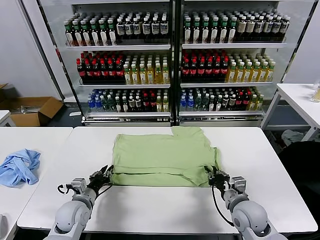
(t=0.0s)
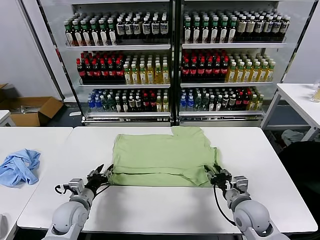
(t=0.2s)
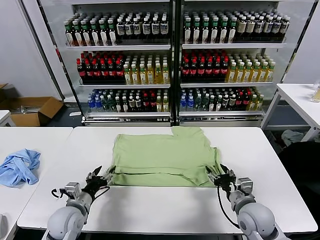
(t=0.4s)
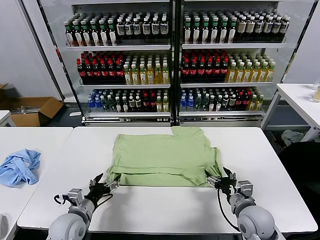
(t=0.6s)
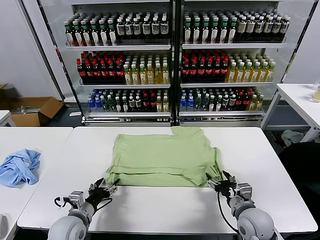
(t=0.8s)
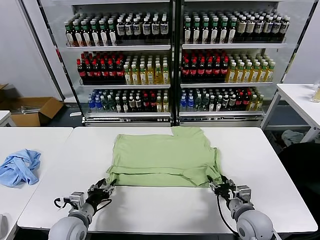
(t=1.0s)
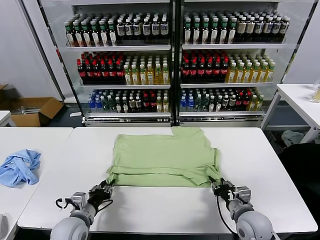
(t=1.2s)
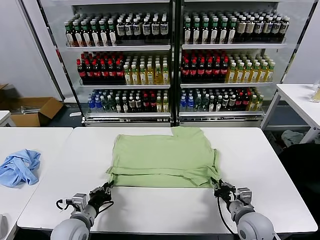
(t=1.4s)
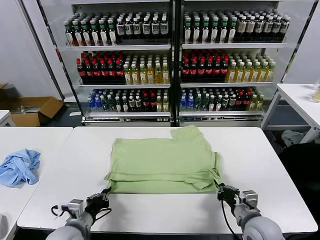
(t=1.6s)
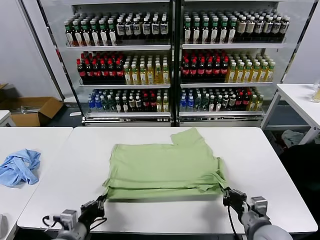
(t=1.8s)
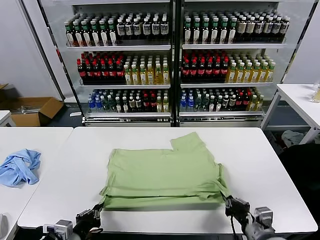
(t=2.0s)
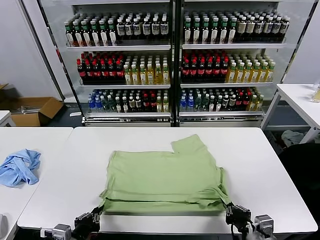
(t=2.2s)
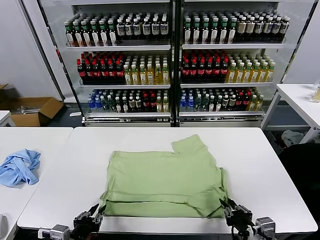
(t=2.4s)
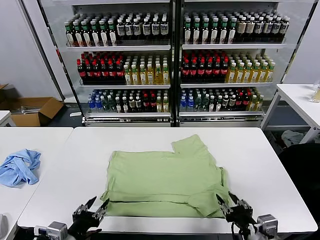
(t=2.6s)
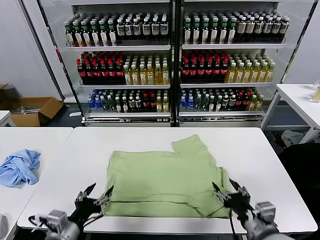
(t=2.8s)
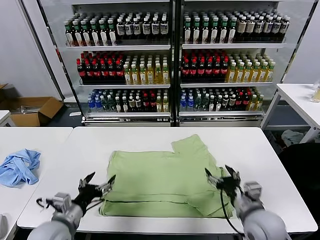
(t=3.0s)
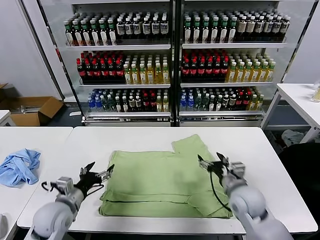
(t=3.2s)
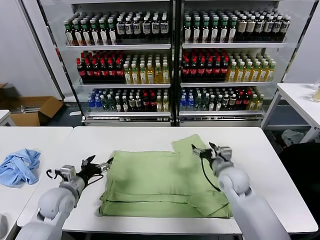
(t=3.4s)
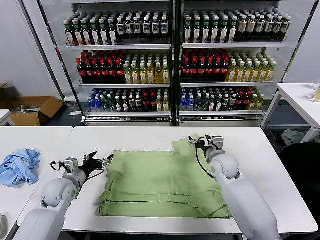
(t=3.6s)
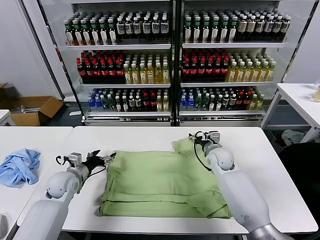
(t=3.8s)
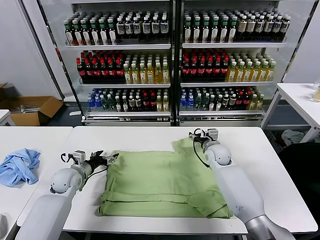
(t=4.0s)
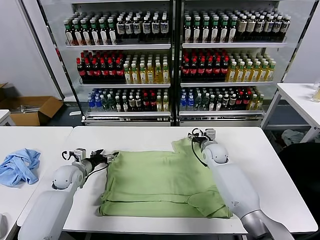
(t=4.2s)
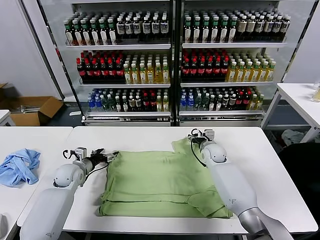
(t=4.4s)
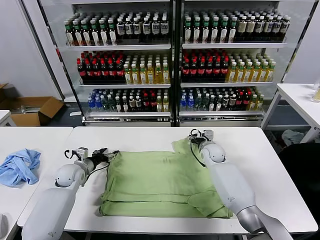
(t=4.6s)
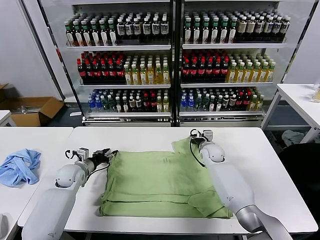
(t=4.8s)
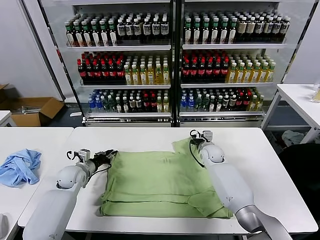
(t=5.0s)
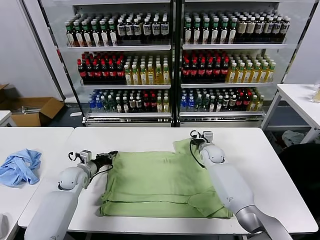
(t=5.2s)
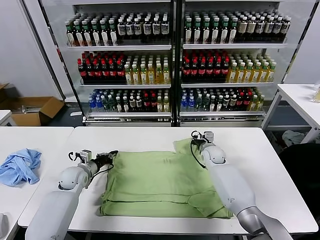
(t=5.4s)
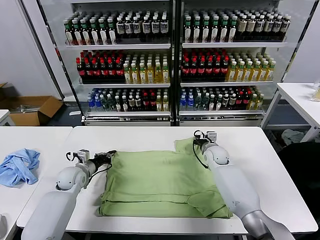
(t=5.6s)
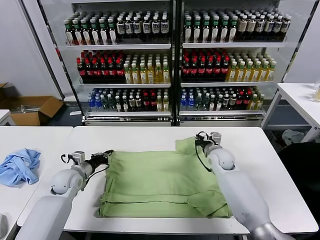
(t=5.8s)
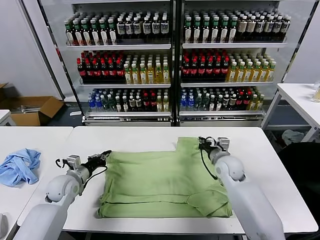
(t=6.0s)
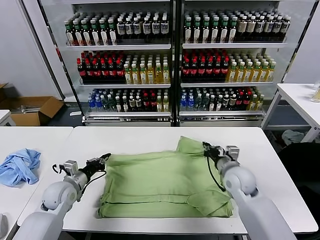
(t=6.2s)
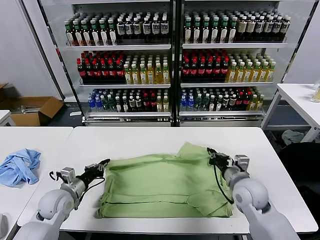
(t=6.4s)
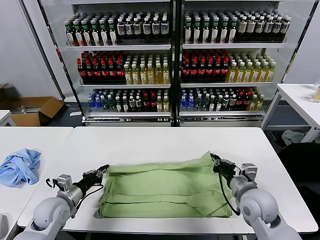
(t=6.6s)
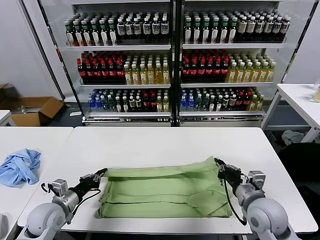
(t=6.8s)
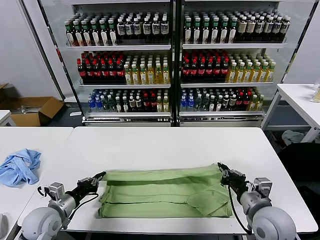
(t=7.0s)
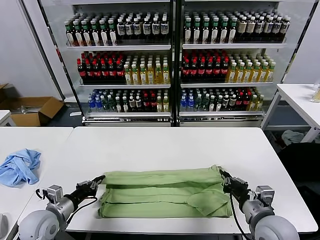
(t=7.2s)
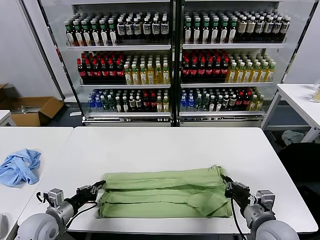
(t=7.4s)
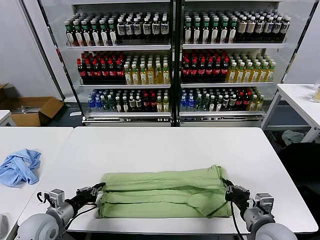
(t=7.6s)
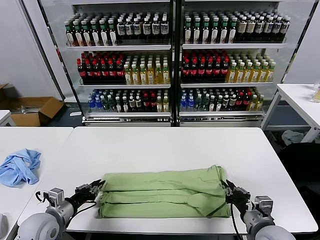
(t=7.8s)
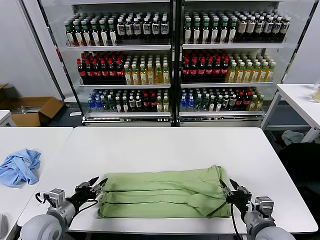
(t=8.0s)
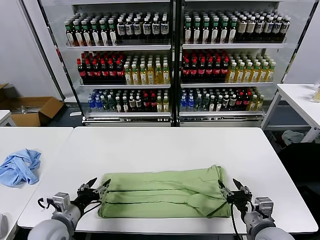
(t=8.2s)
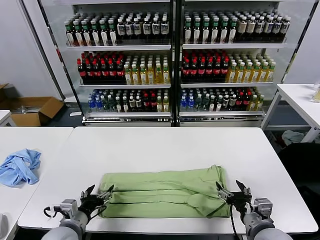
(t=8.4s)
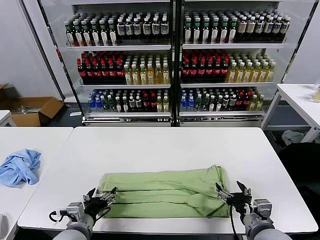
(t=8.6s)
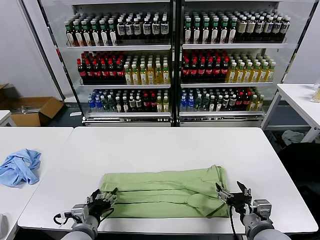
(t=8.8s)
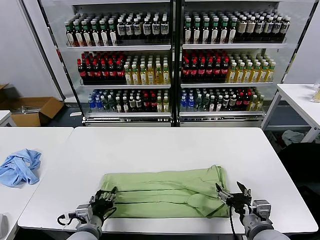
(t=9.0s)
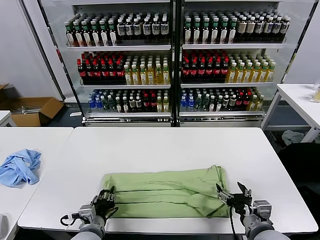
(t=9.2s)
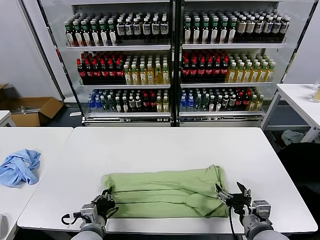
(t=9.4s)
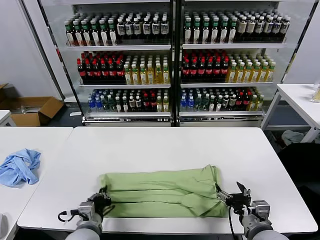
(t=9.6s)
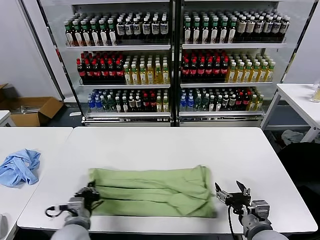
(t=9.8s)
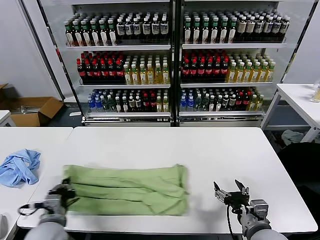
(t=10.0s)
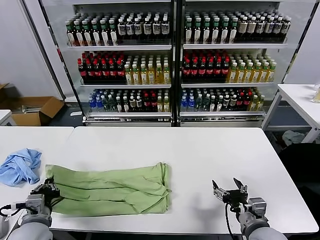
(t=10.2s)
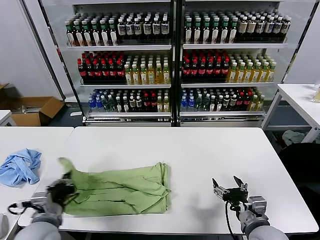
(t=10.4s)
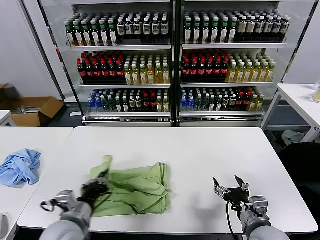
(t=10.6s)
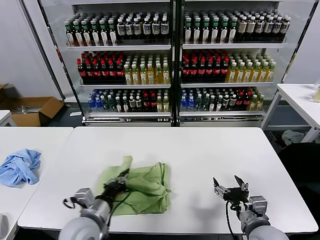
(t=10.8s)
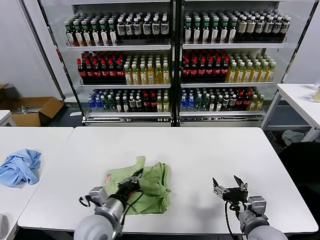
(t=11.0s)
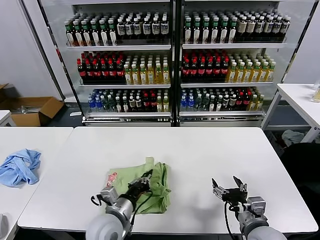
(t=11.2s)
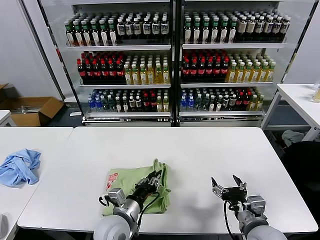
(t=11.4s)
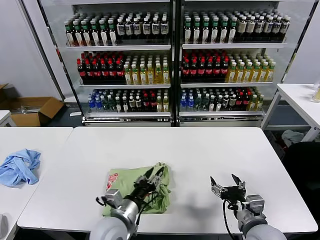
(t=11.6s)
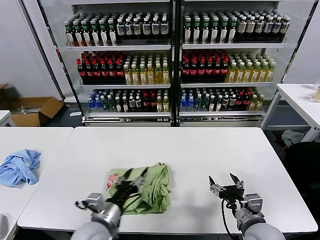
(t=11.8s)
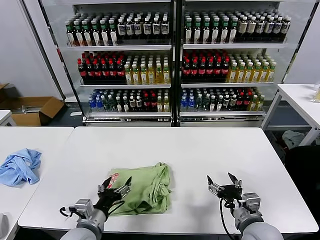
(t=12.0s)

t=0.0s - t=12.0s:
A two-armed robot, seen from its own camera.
Task of the whole recording: fold and organize the clothes.
Step, t=0.4s - t=2.4s: Drag the clothes downward with both gripper.
Step, t=2.8s - t=5.2s: use both grippers simultaneously to clamp the upper edge of the clothing fabric.
Step, t=5.4s - t=8.0s: use both grippers to drag the upper edge of the fabric backward and fold it over the lower edge.
Step, t=8.2s - t=9.4s: use the left gripper to clamp the left edge of the fabric.
Step, t=9.6s - t=11.6s: use the left gripper to drag the left edge of the fabric to the left and folds it over the right edge.
t=0.0s - t=1.6s: The grippers both shift backward by some 10 cm. The right gripper closes, while the left gripper opens, then closes once more.
t=1.6s - t=3.0s: The left gripper shifts about 5 cm upward, reaches about 10 cm backward, then returns, and opens its fingers; the right gripper moves forward, roughly 5 cm, and opens.
t=3.0s - t=4.4s: The two grippers go roughly 25 cm forward.
t=4.4s - t=6.0s: The left gripper travels backward by approximately 5 cm, and closes; the right gripper heads backward, covering roughly 10 cm, and closes up.
t=6.0s - t=7.6s: The right gripper travels backward by approximately 20 cm, while the left gripper travels backward by roughly 15 cm.
t=7.6s - t=9.0s: The left gripper travels to the right by roughly 15 cm, and opens; the right gripper opens its fingers.
t=9.0s - t=10.4s: The left gripper goes approximately 10 cm to the left and upward, and closes its fingers.
t=10.4s - t=12.0s: The left gripper travels to the right by some 10 cm, and opens.

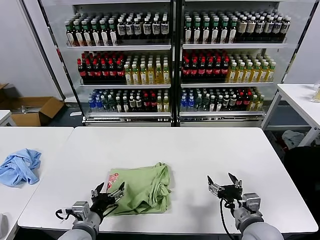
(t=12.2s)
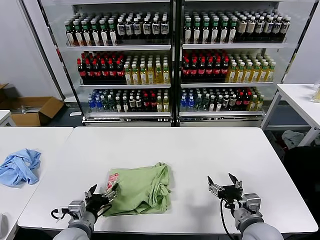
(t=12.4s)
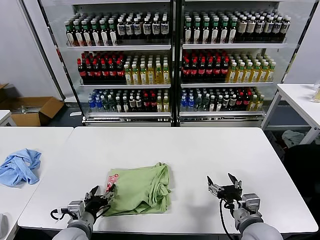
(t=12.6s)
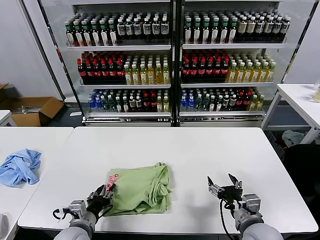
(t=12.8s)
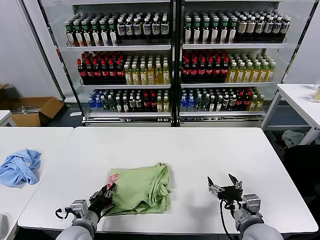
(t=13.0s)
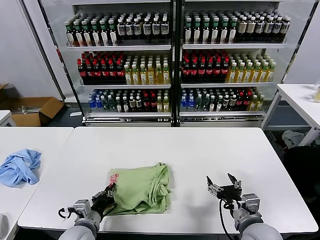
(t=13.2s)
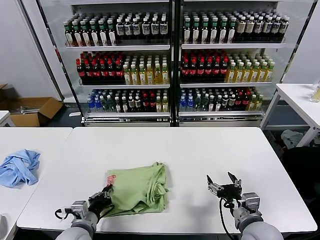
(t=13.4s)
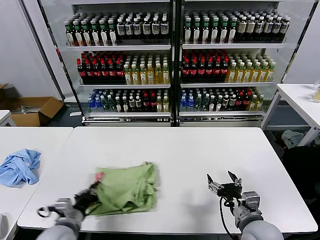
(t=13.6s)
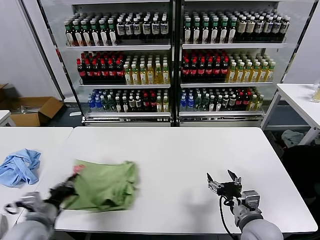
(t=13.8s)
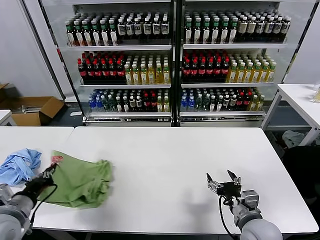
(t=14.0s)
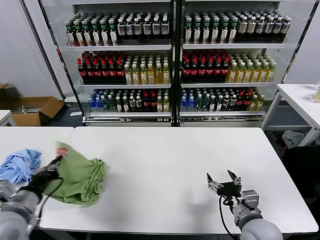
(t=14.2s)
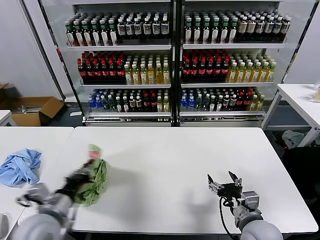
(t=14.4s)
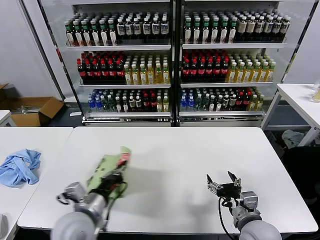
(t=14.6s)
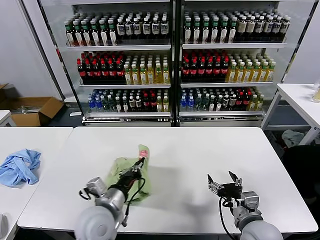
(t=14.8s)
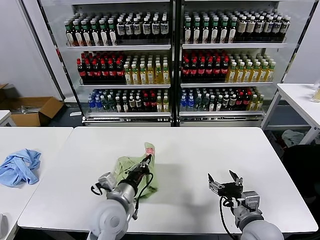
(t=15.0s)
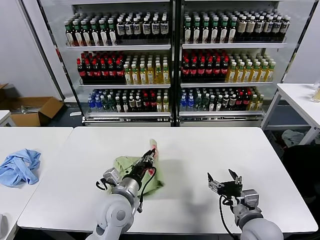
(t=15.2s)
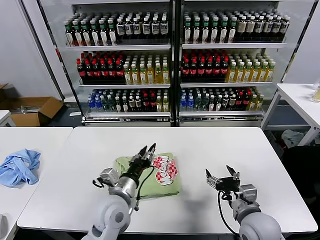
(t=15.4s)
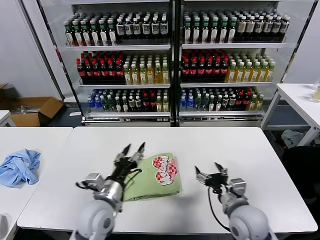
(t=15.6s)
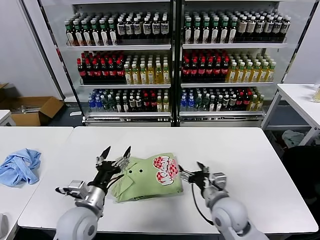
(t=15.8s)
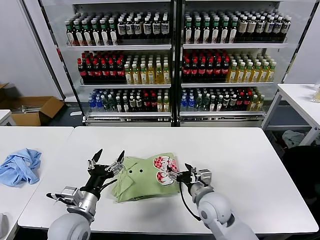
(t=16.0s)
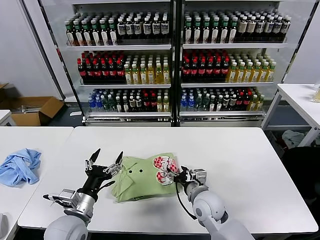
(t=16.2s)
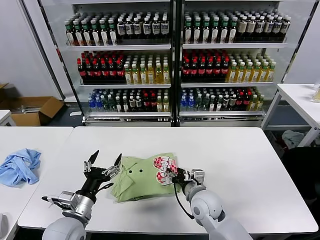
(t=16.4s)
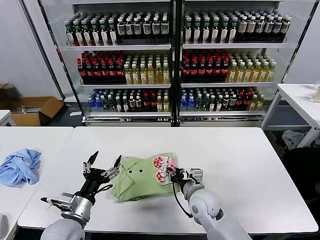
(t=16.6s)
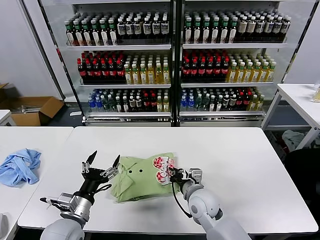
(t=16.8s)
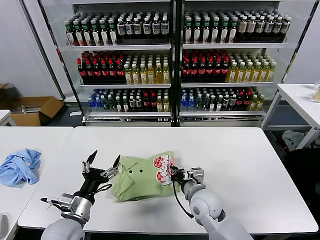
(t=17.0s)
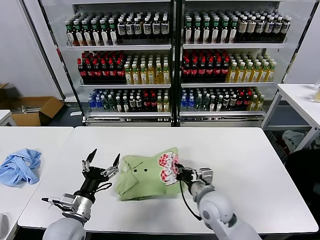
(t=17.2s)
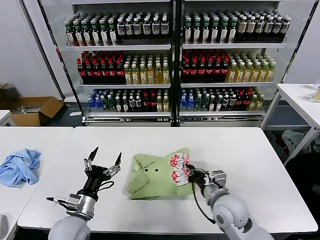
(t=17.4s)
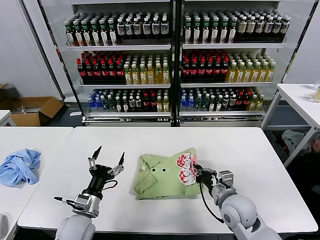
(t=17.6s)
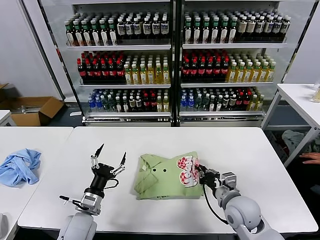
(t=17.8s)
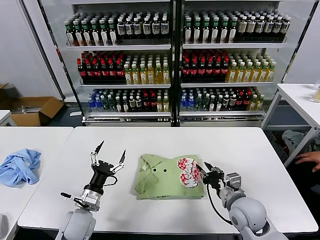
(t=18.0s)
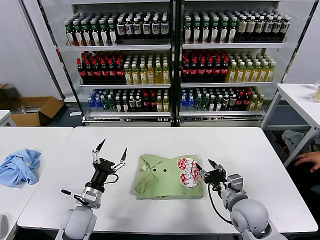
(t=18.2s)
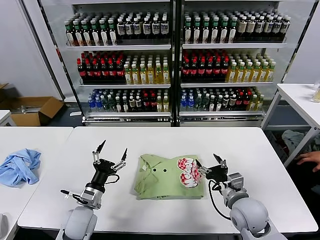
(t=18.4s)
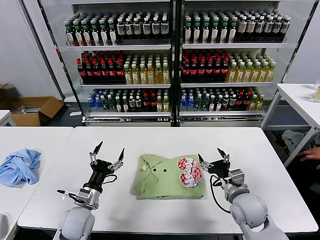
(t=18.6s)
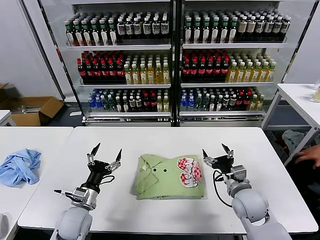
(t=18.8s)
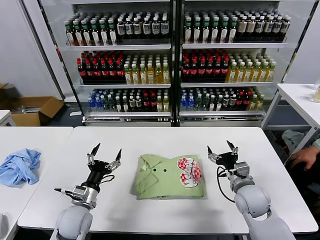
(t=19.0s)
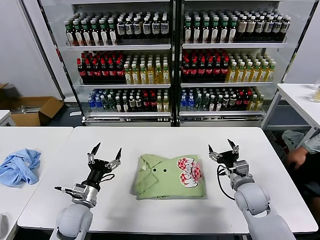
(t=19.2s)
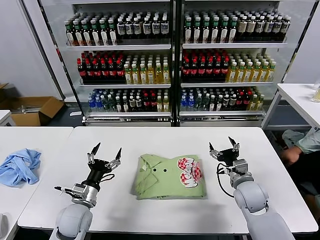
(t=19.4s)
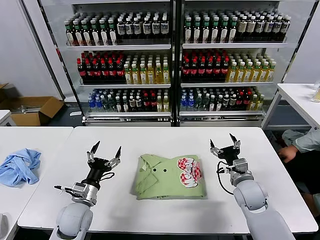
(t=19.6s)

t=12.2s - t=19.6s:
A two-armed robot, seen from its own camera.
Task of the whole recording: fold and organize the clothes.
Step, t=12.2s - t=15.4s: Flip the folded clothes over with left gripper.
Step, t=15.6s - t=18.0s: Drag the clothes to the center of the table.
t=12.2s - t=13.6s: The left gripper closes its fingers.
t=13.6s - t=15.2s: The left gripper heads to the right, upward and forward, covering roughly 15 cm.
t=15.2s - t=16.6s: The right gripper goes about 15 cm to the left and forward, and closes. Meanwhile the left gripper shifts some 15 cm to the left and backward, and opens up.
t=16.6s - t=18.2s: The right gripper heads to the right, covering roughly 10 cm, and closes and opens again; the left gripper moves downward and forward, roughly 10 cm.
t=18.2s - t=19.6s: The right gripper heads forward, covering approximately 5 cm, and opens.
